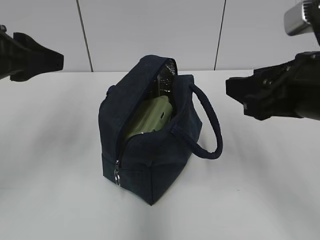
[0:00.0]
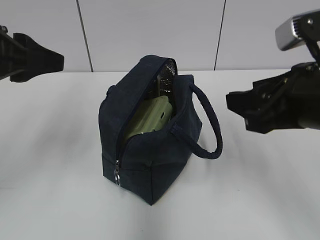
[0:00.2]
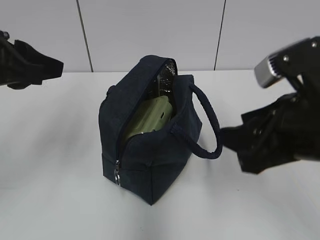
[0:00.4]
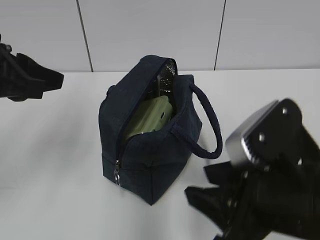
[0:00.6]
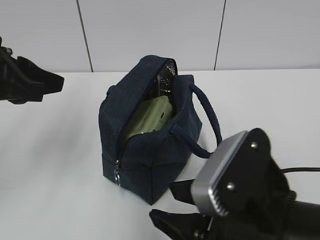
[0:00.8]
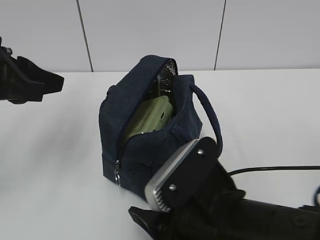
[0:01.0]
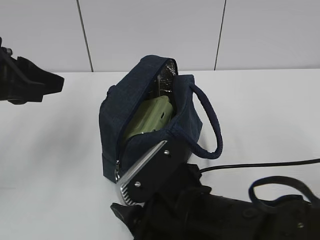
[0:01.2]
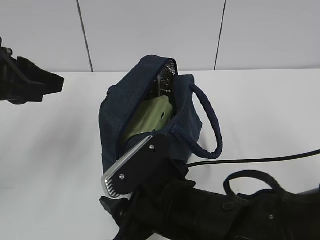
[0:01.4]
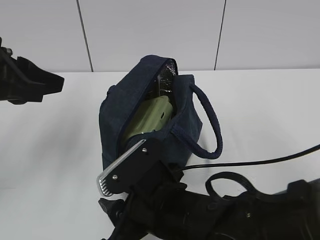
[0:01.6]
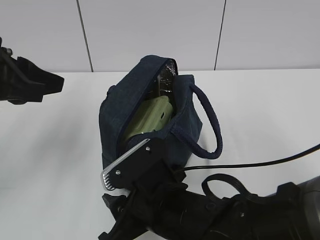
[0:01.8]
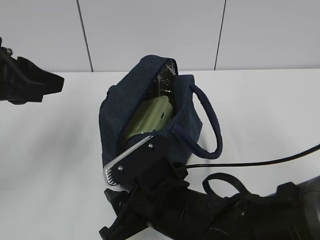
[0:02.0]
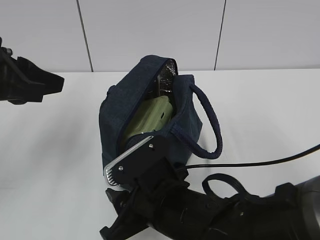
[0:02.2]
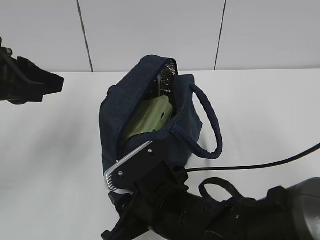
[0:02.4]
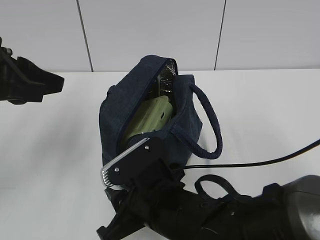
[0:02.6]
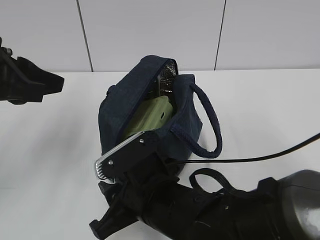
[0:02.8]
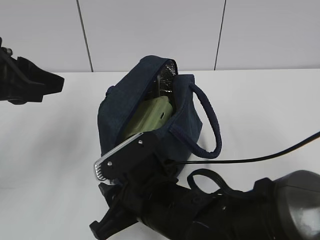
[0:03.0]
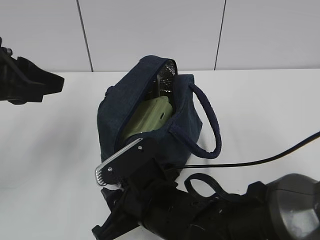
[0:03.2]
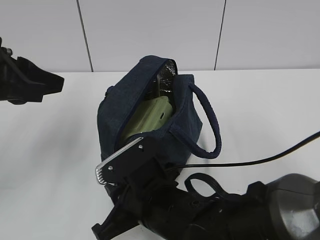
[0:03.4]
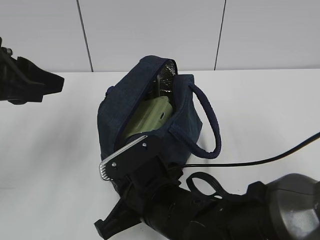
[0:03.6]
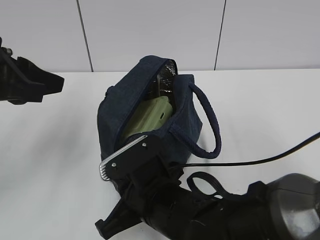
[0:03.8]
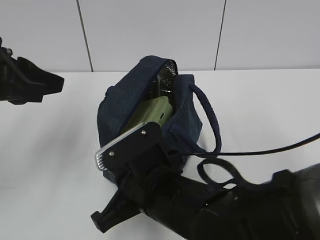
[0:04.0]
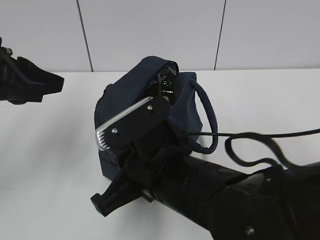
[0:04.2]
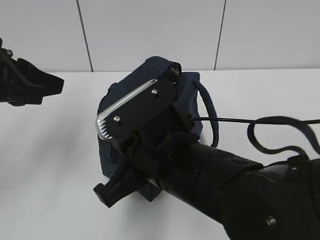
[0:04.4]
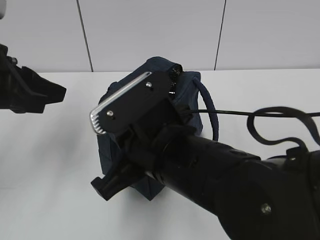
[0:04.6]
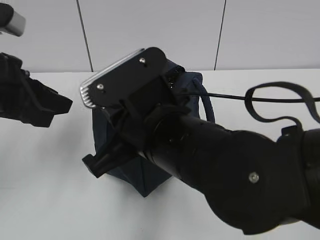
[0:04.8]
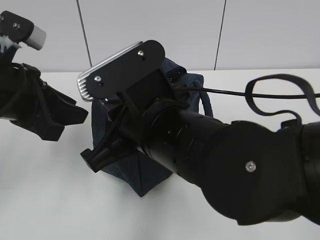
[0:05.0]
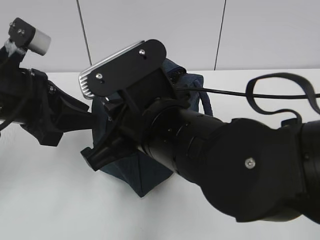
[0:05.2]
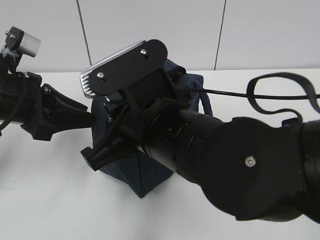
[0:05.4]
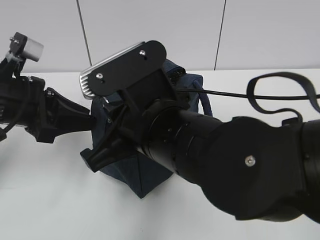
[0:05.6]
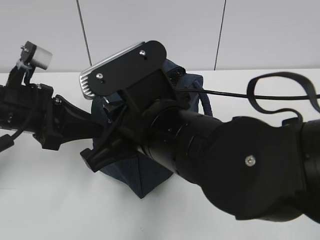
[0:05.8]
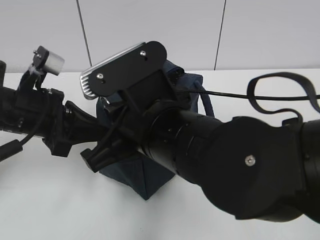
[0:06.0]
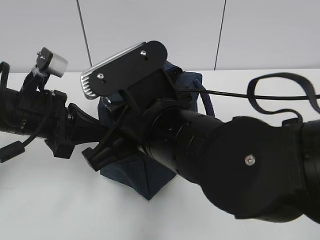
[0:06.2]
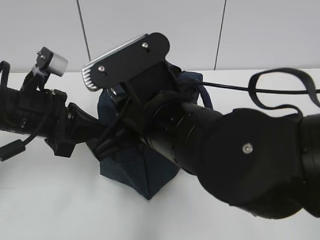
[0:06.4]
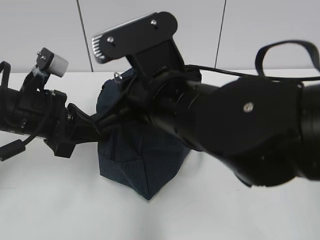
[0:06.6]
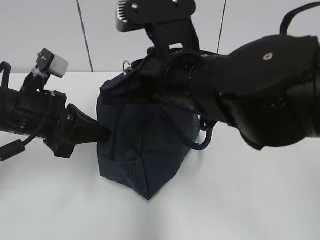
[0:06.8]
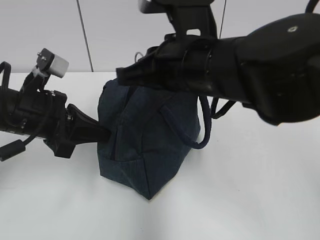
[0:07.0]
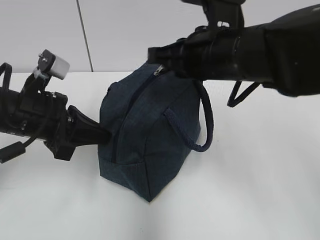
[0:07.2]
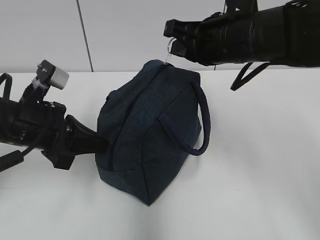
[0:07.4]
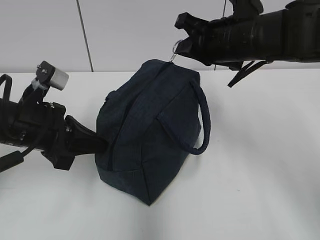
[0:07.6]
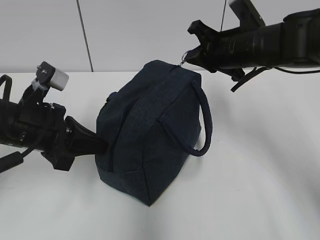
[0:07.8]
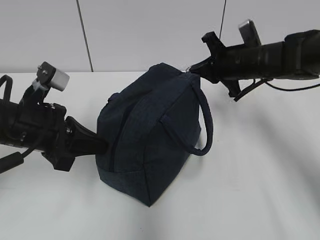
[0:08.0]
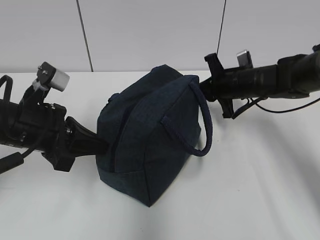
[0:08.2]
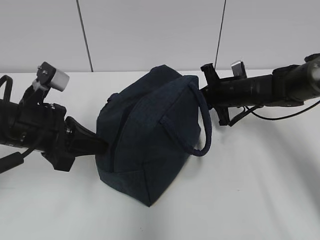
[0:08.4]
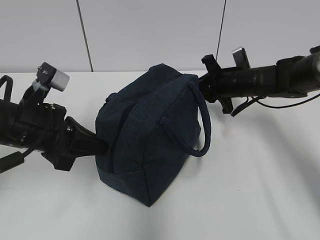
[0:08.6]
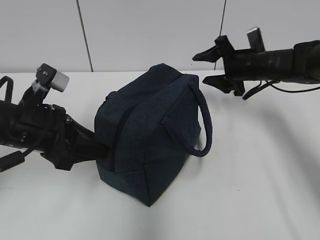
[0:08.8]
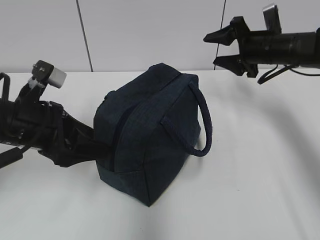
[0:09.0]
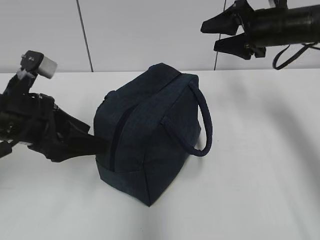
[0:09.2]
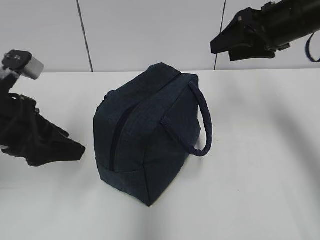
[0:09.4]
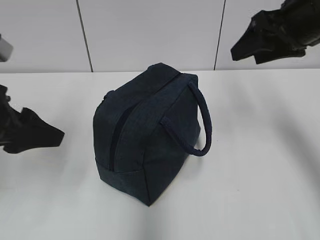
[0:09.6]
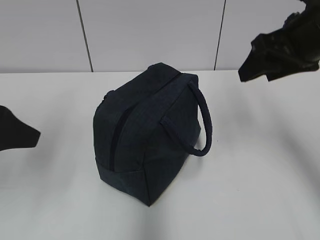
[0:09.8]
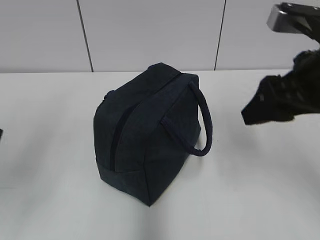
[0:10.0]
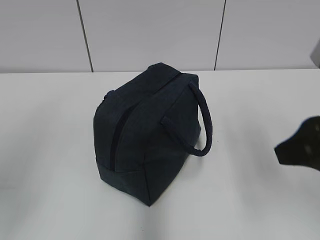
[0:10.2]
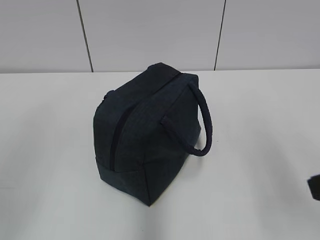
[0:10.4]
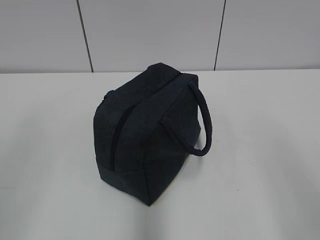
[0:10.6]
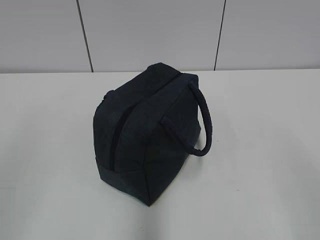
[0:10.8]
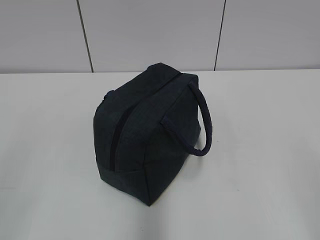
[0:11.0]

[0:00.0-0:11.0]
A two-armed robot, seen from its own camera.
Step, 0:00.0 to 0:08.4: Pull the zipper with your right hand.
0:00.0 to 0:01.6: The right gripper heads to the left and downward, covering about 20 cm.
0:01.6 to 0:03.2: The grippers make only small movements.
0:03.2 to 0:04.8: The right gripper heads upward, covering about 10 cm, and closes its fingers.
0:04.8 to 0:06.2: The left gripper heads downward, covering some 5 cm, and closes its fingers.
0:06.2 to 0:07.8: The right gripper is displaced forward and to the right by roughly 25 cm.
0:07.8 to 0:09.4: The left gripper shifts by roughly 5 cm, and opens up. The right gripper shifts some 10 cm upward and to the right, and opens.
0:09.4 to 0:11.0: The right gripper is displaced backward by about 35 cm. Meanwhile the left gripper is displaced backward by approximately 25 cm.
